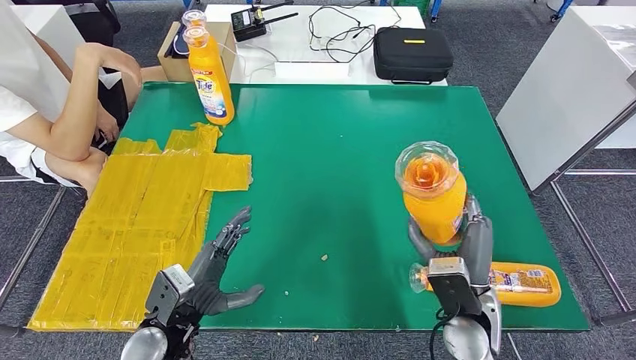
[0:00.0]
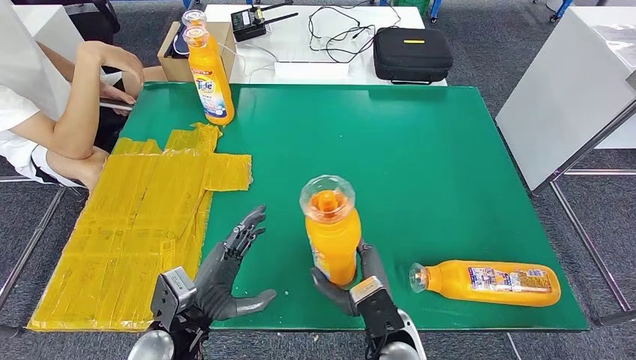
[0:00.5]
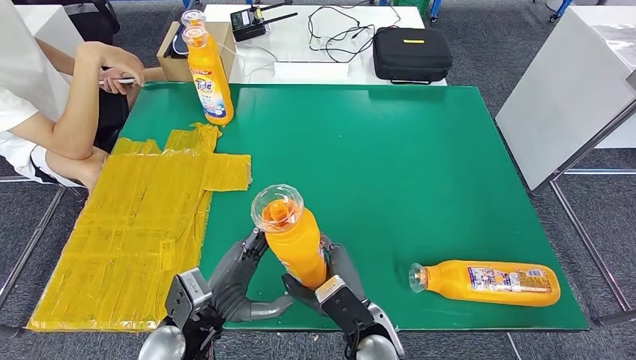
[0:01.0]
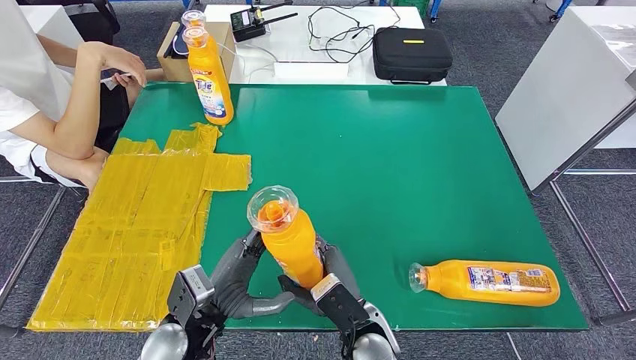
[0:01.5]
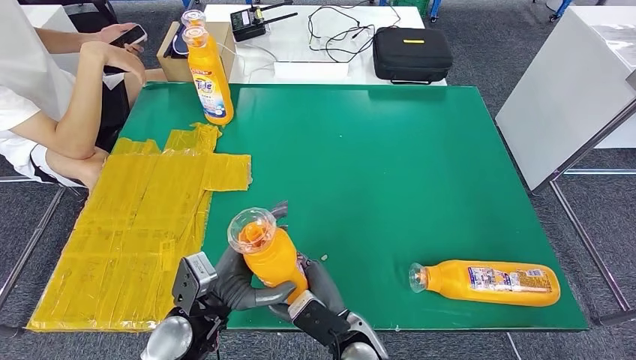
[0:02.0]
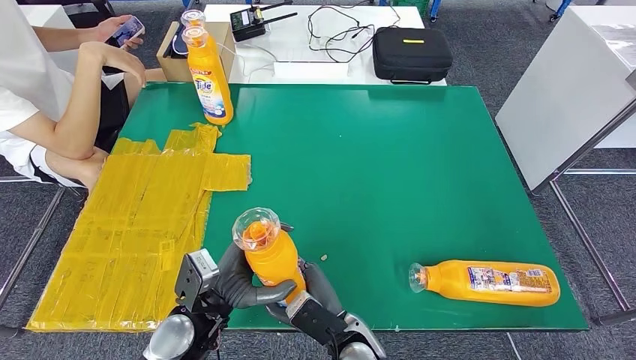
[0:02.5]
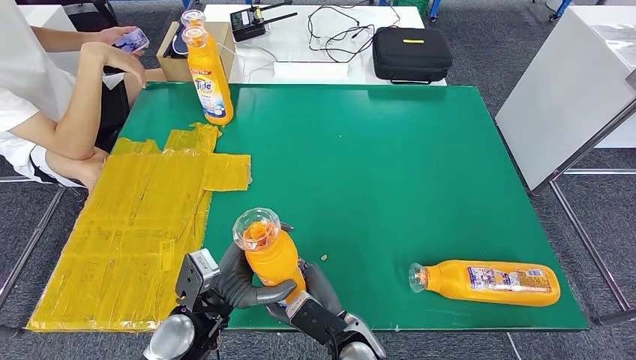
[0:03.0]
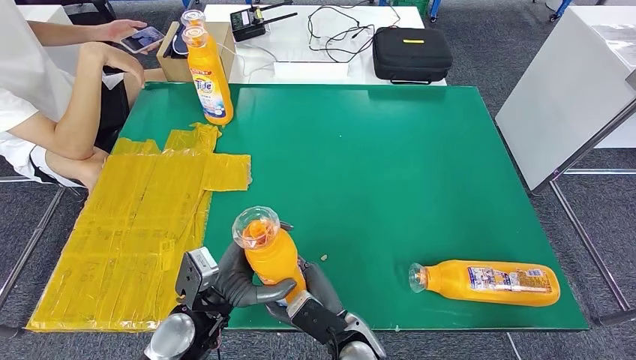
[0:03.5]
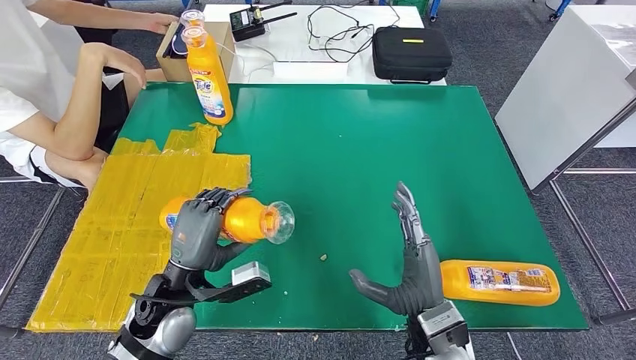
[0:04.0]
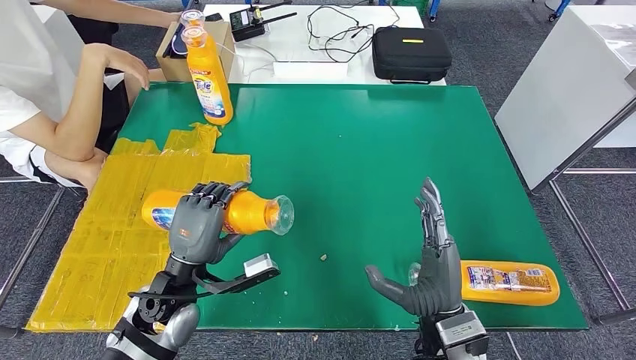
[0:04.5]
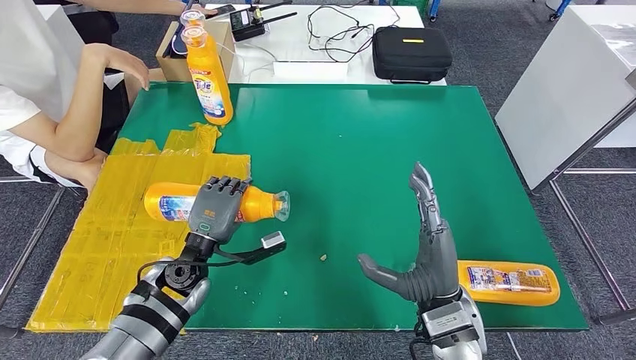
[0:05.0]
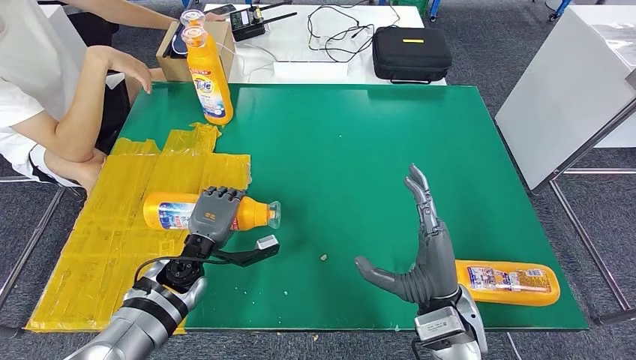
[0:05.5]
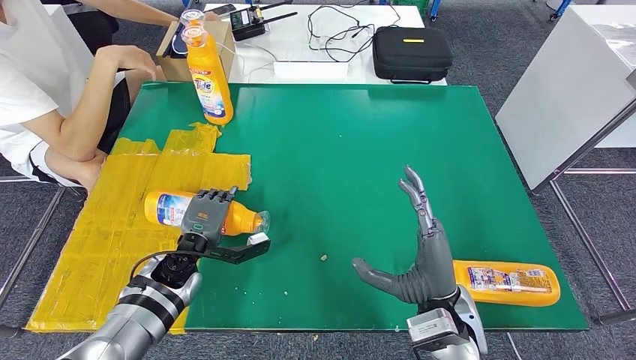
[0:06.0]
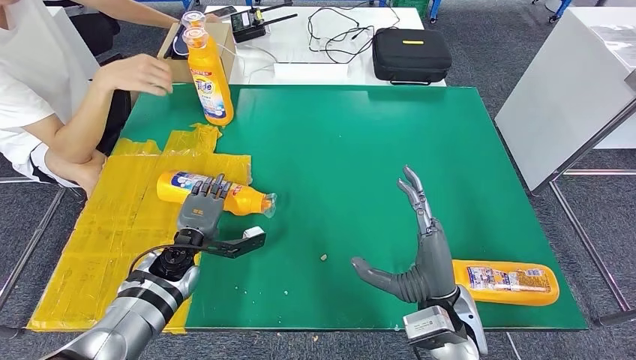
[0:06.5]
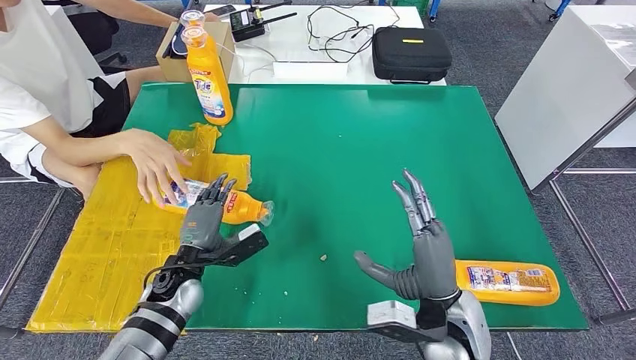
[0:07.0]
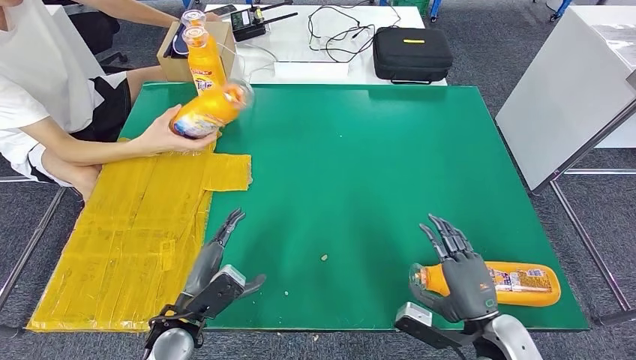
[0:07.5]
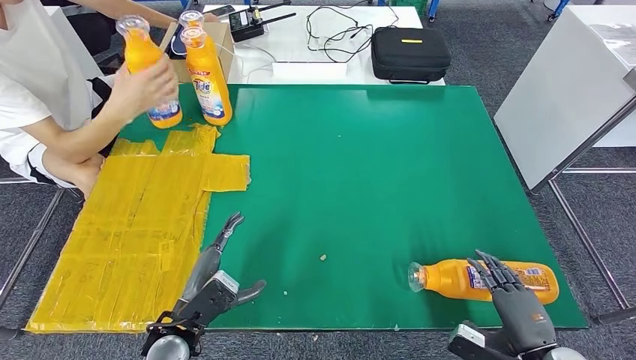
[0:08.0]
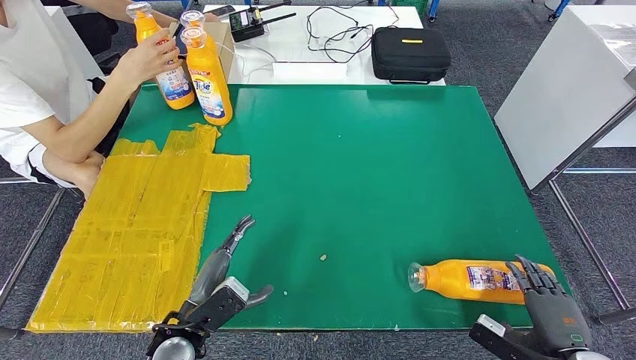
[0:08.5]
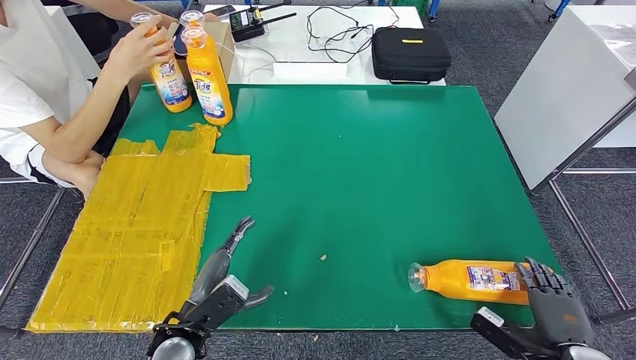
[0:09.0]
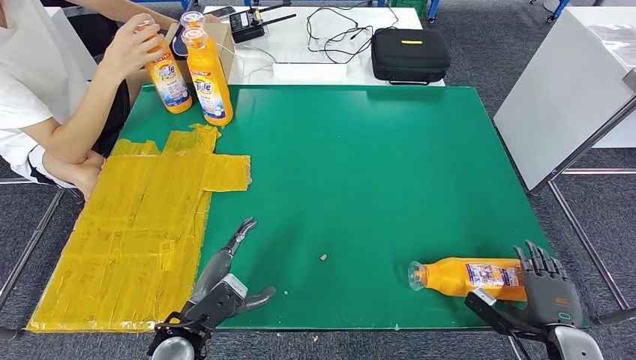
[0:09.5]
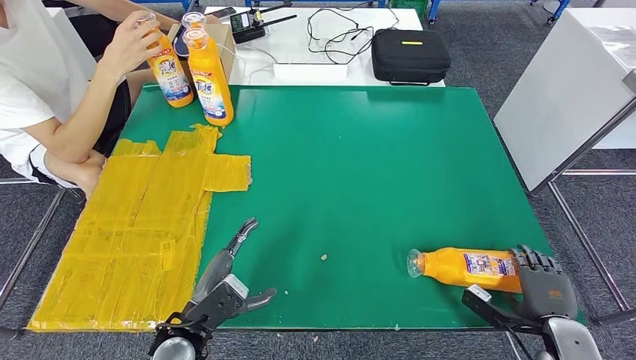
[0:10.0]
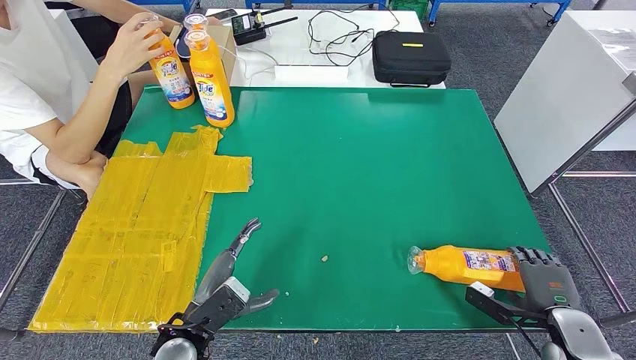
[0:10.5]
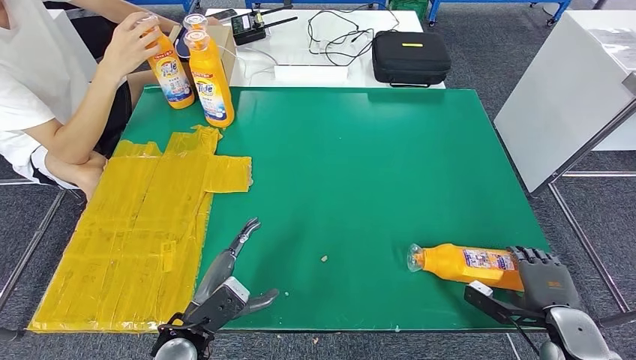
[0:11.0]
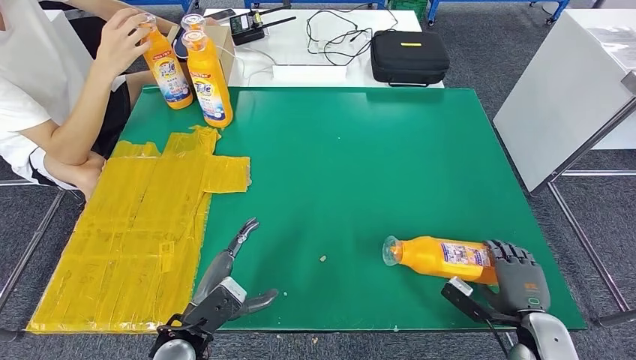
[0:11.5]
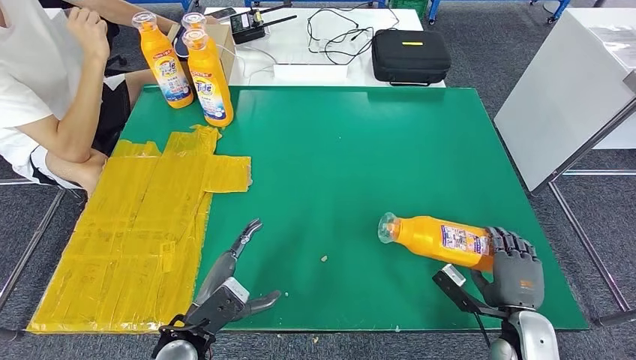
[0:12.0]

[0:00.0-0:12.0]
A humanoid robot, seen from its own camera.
Step, 0:01.0 to 0:06.5: Flip the fast-moving consumer goods bottle to the front side.
0:00.0 to 0:02.0: The left hand ends up some 5 cm from where it was; the right hand goes roughly 20 cm to the left and downward.
0:02.0 to 0:04.0: The left hand changes place by approximately 5 cm. Meanwhile the right hand shifts about 15 cm to the right and upward.
0:04.0 to 0:06.0: The left hand shifts roughly 10 cm forward and downward.
0:08.0 to 0:10.0: The right hand travels to the right and forward by about 5 cm.
0:10.0 to 0:12.0: The right hand shifts some 10 cm to the left.

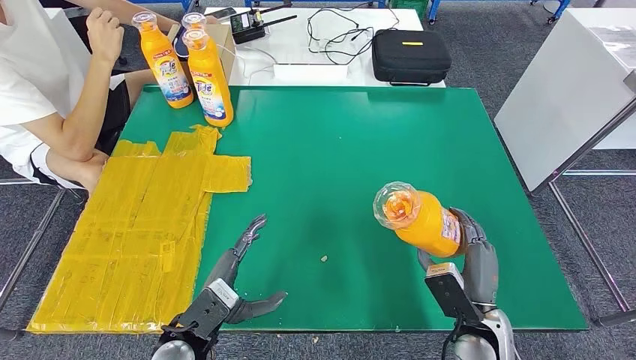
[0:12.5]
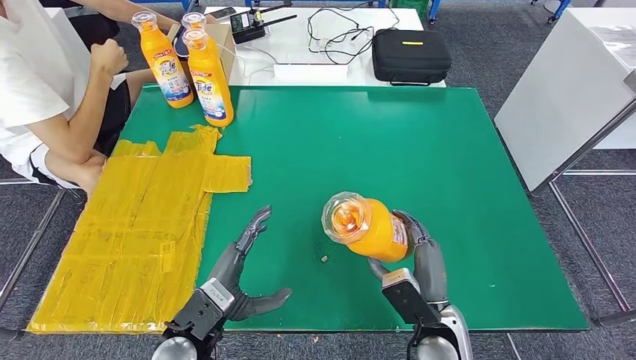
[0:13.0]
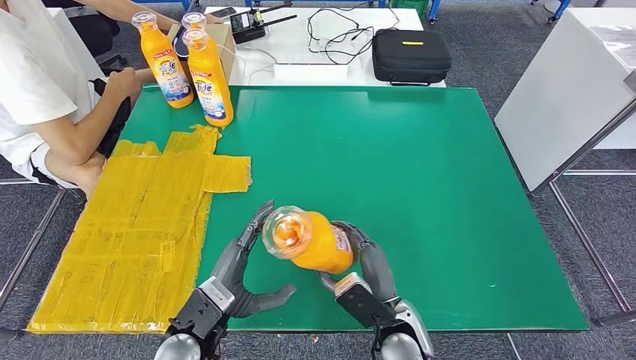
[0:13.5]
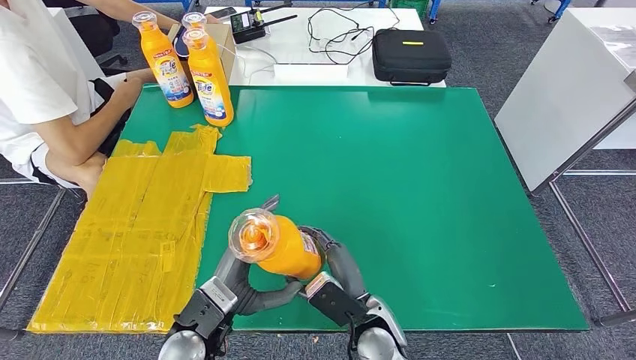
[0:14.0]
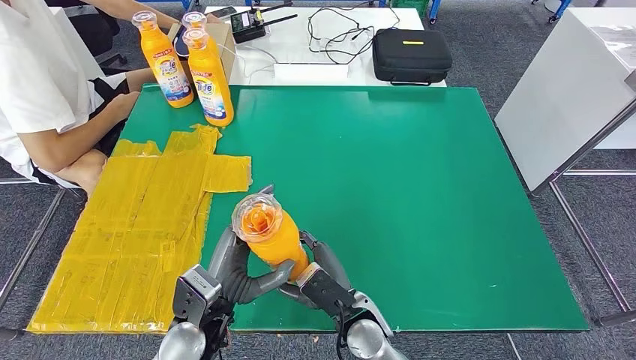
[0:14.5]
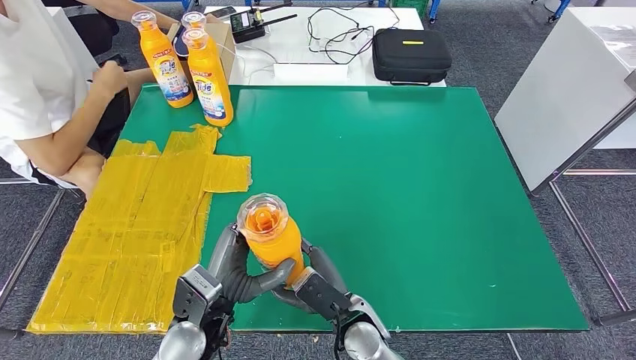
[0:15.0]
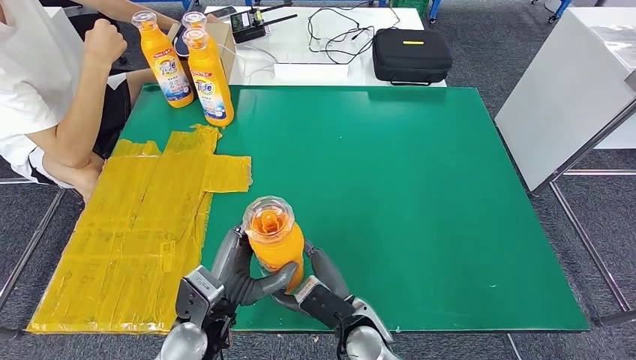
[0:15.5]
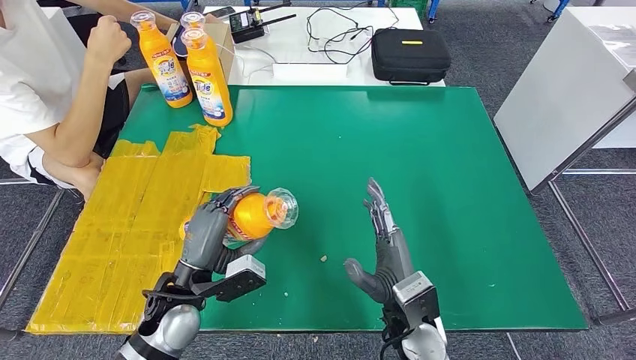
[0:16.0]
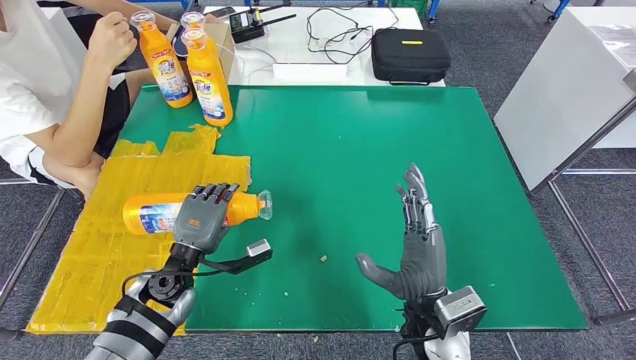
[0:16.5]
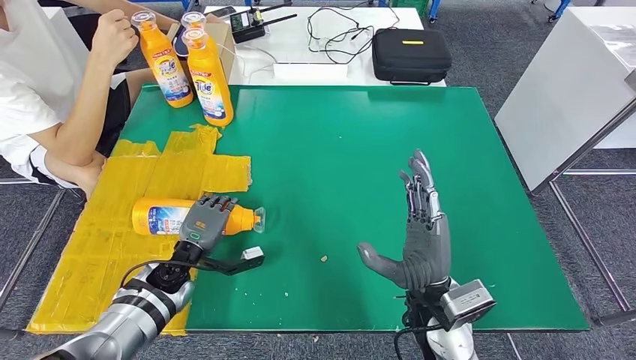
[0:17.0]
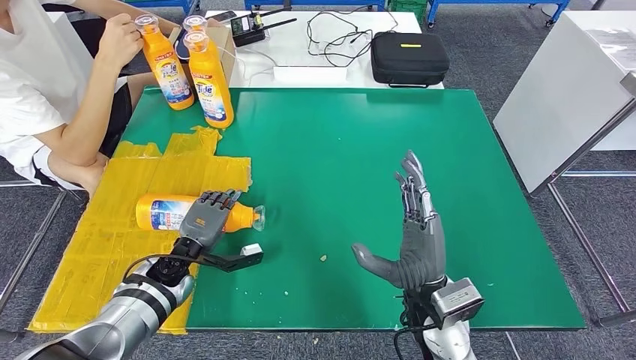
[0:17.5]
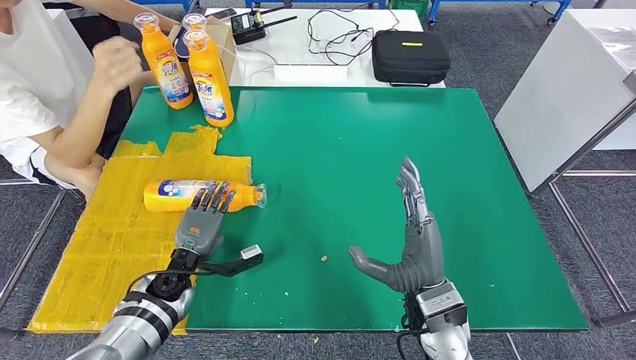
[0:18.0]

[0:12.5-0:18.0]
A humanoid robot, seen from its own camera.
Step, 0:14.0 to 0:18.0: Flip the fast-moving consumer goods bottle to the front side.
0:12.5 to 0:14.5: The left hand moves some 5 cm. Meanwhile the right hand goes approximately 20 cm to the left.
0:14.5 to 0:16.0: The right hand heads to the right and upward, covering roughly 10 cm; the left hand moves approximately 5 cm.
0:16.0 to 0:18.0: The left hand moves downward, forward and to the left, some 15 cm.
